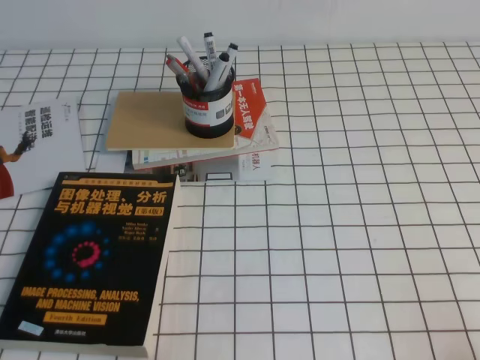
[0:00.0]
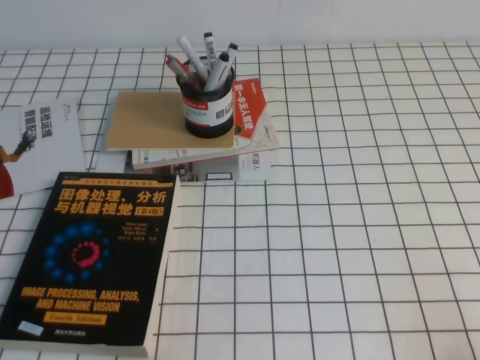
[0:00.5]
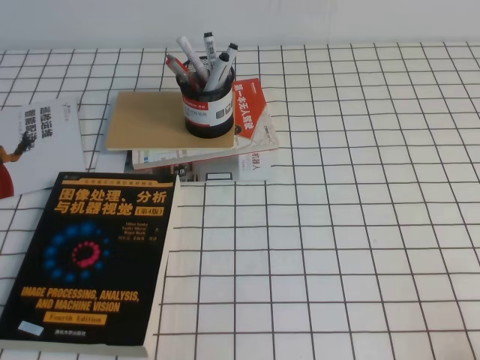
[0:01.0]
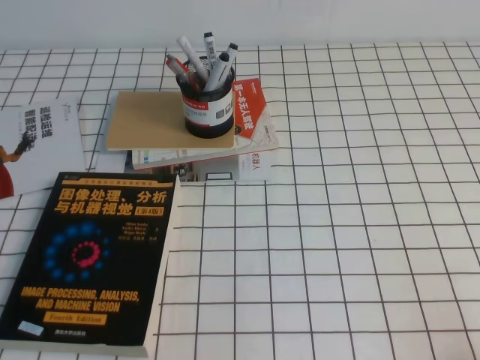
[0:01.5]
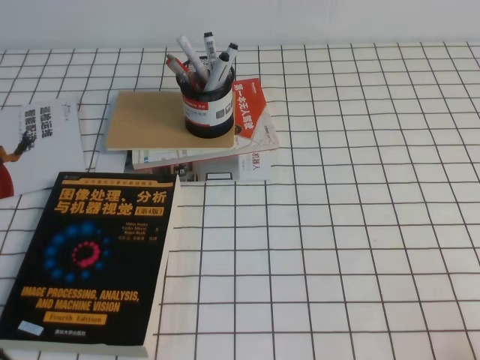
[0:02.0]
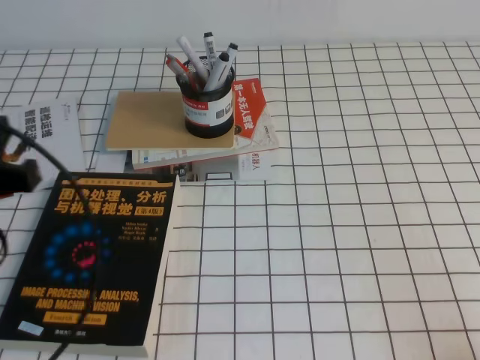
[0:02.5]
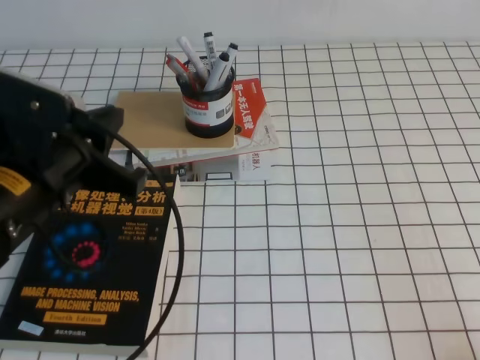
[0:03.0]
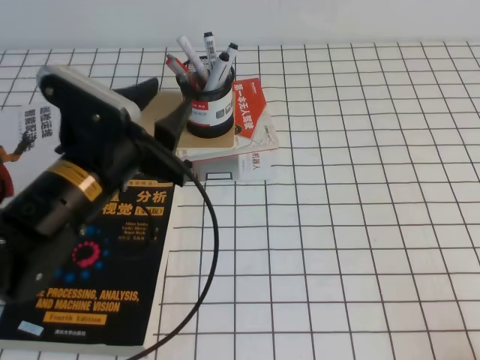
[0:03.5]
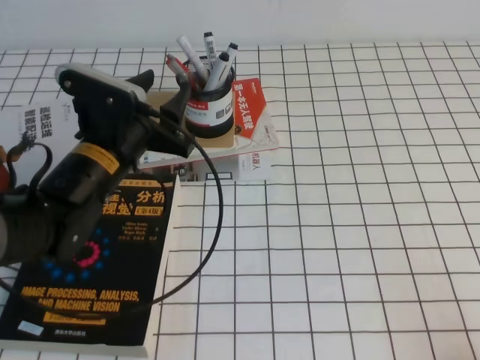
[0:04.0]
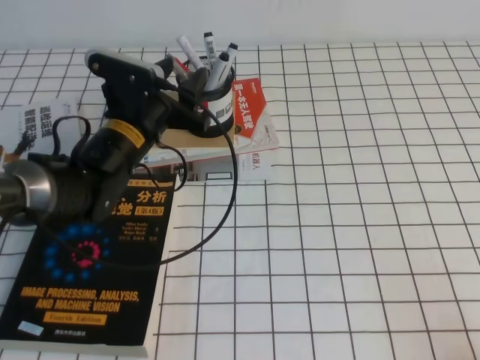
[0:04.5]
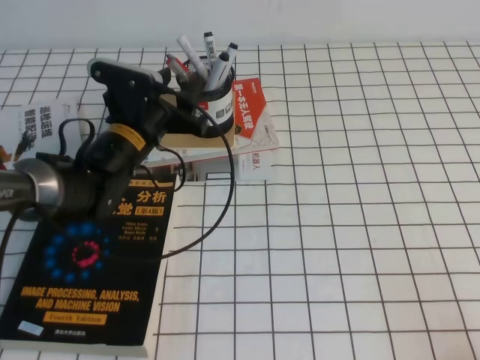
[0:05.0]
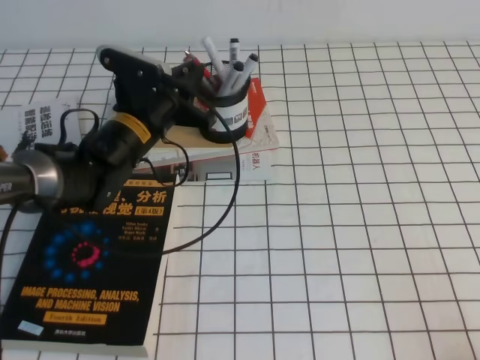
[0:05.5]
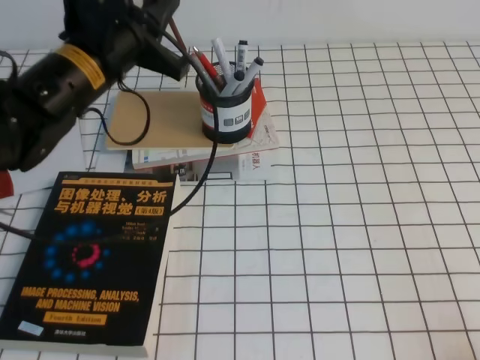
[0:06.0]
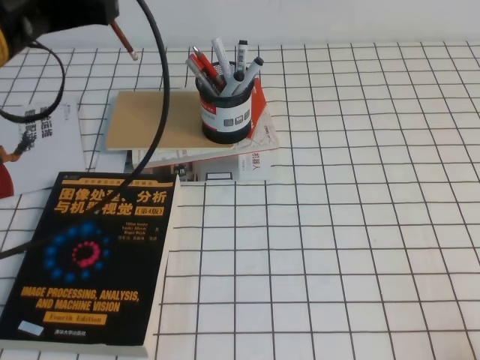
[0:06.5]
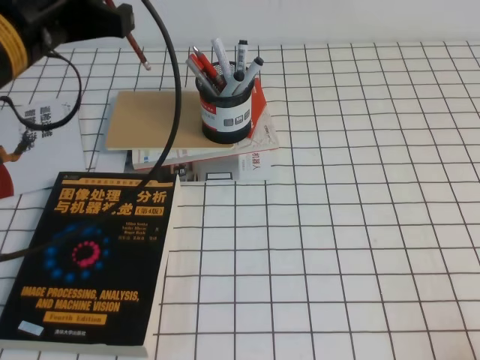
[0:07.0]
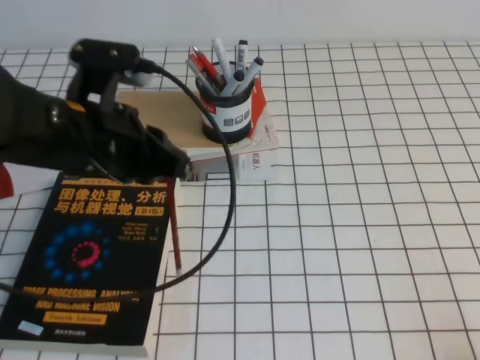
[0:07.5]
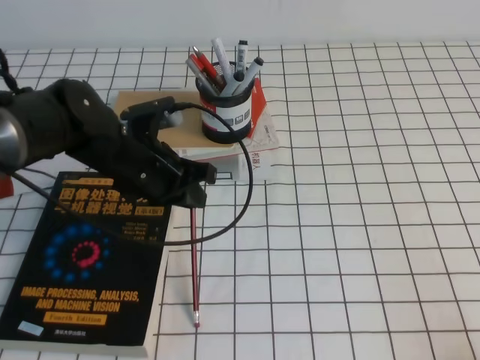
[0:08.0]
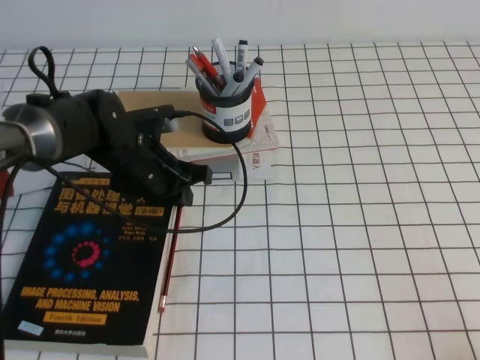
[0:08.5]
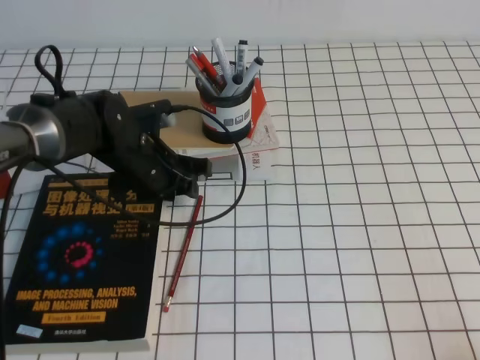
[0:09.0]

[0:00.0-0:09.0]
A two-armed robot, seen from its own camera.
0:02.0 to 0:04.5: The left gripper goes some 35 cm forward and to the right, and opens.
0:04.5 to 0:07.0: The left gripper travels upward and backward by about 20 cm, and closes.
0:07.0 to 0:09.0: The left gripper shifts some 20 cm downward and forward, and opens its fingers.

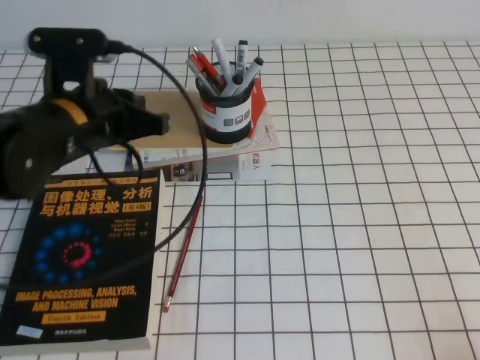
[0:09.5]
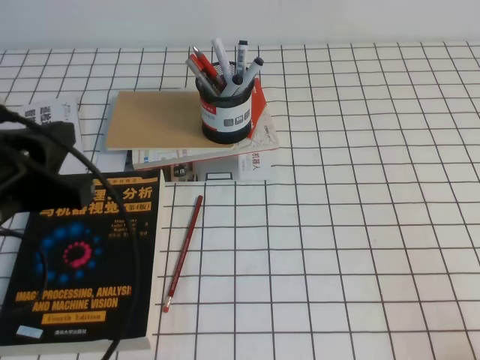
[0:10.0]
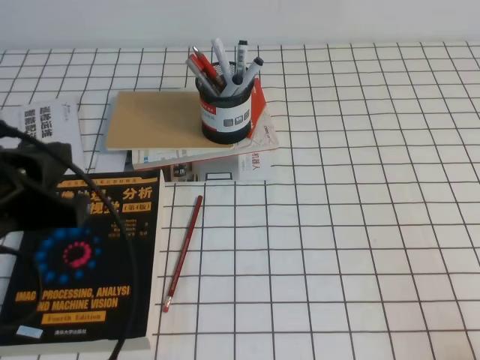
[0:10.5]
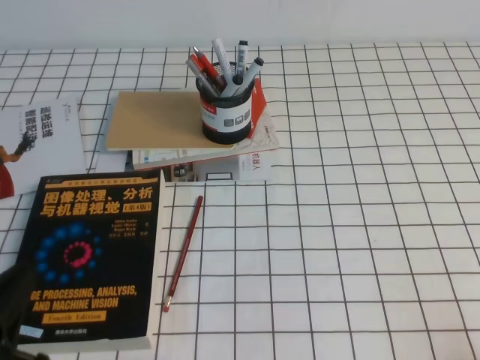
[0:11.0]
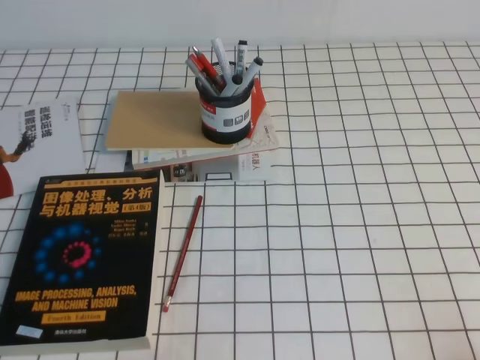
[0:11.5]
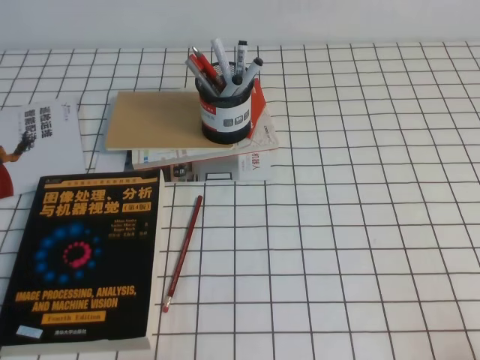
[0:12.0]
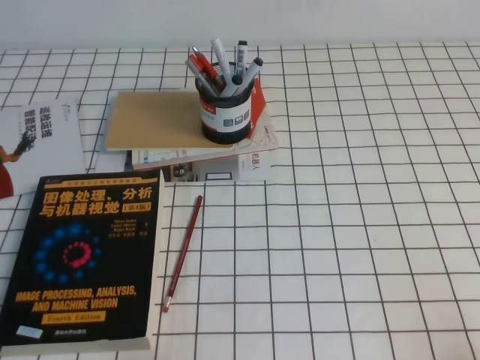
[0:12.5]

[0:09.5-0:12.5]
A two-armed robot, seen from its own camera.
Step, 0:09.5 to 0:12.5: Pick up the pen from the pen holder.
0:09.5 to 0:11.0: The left gripper moves backward, approximately 25 cm.
0:11.0 to 0:12.5: The left gripper is displaced downward by approximately 10 cm.
